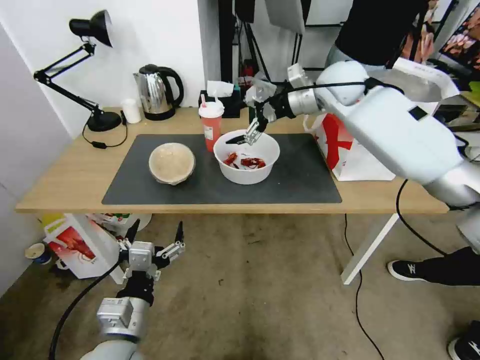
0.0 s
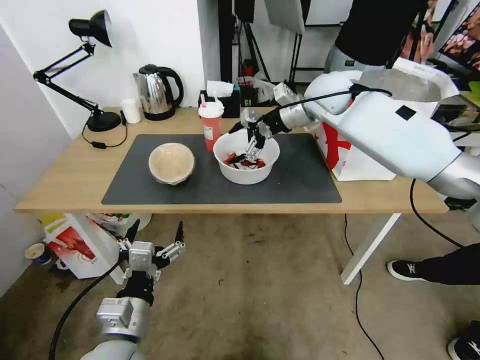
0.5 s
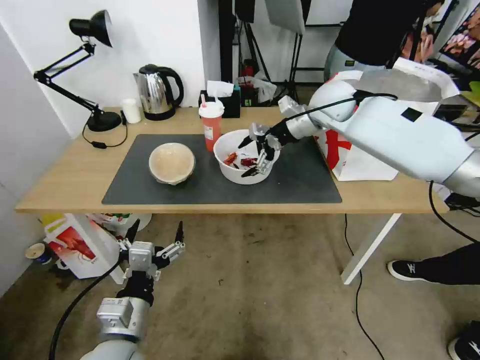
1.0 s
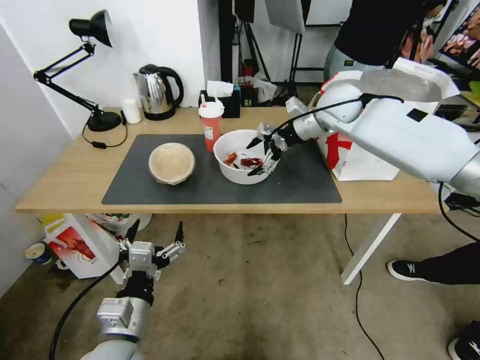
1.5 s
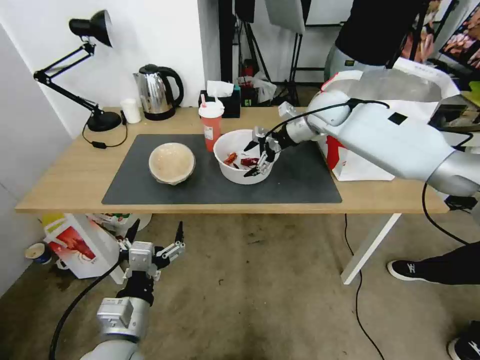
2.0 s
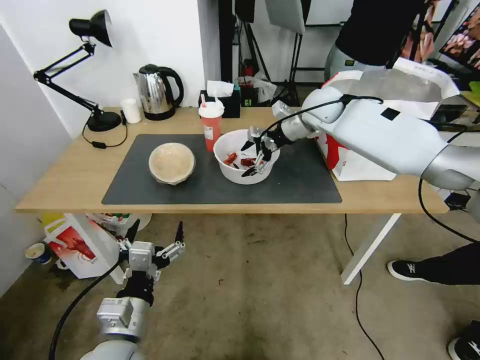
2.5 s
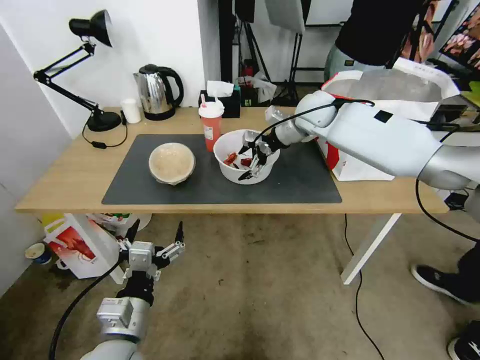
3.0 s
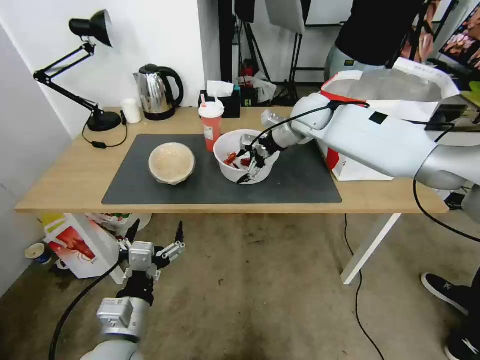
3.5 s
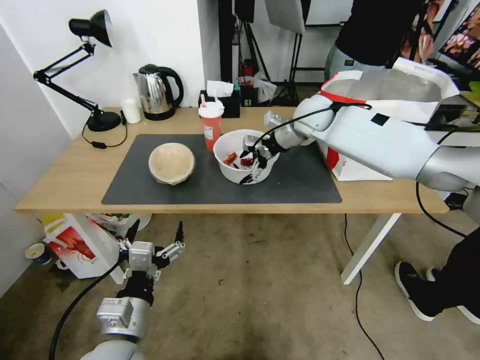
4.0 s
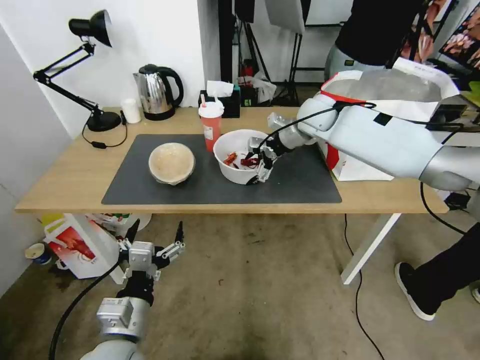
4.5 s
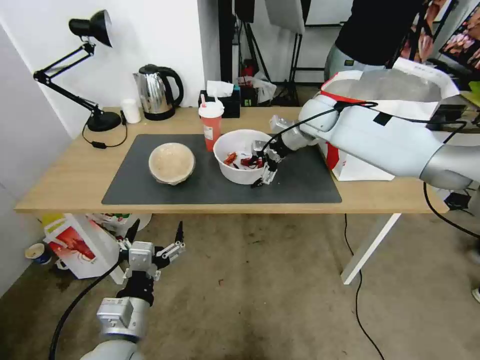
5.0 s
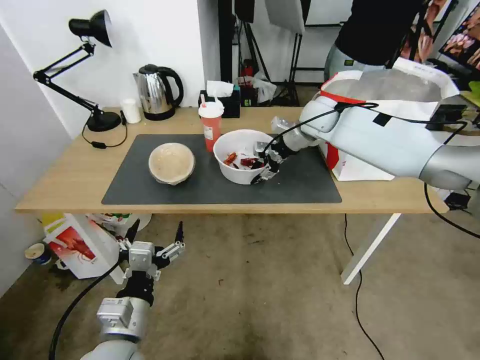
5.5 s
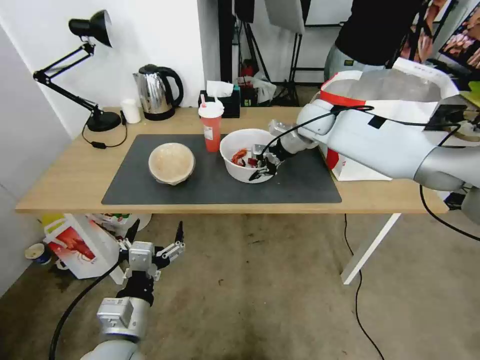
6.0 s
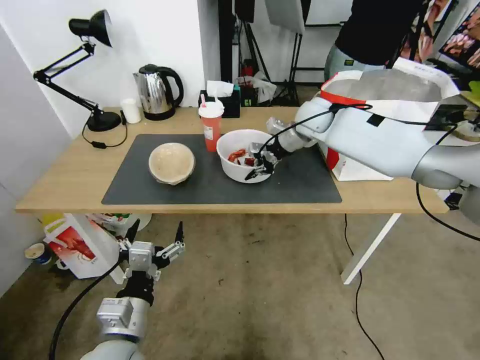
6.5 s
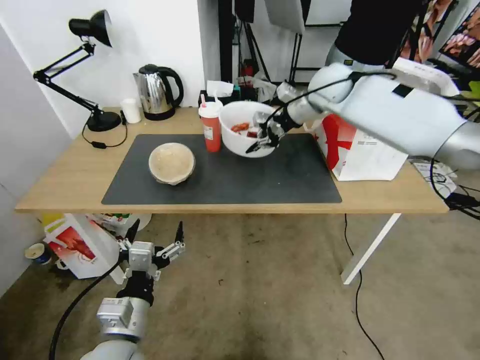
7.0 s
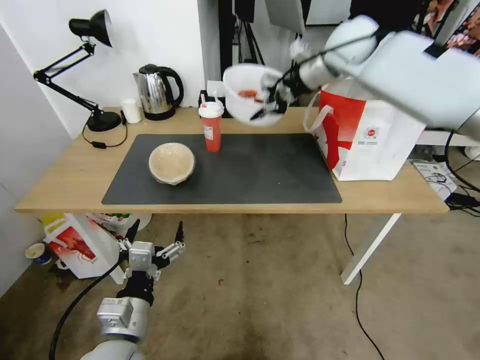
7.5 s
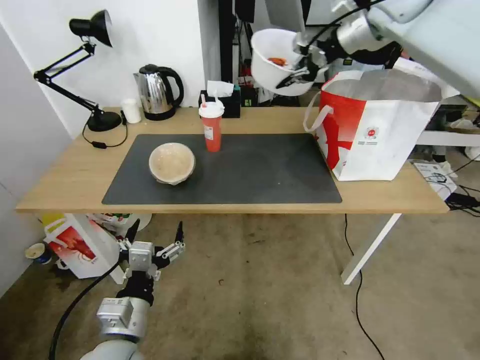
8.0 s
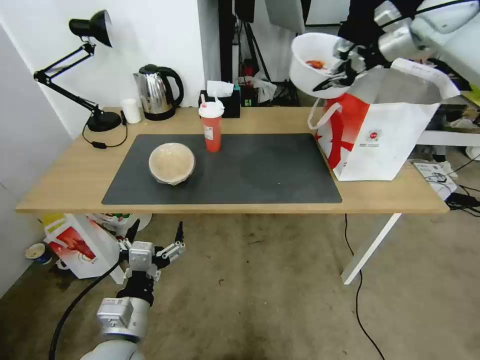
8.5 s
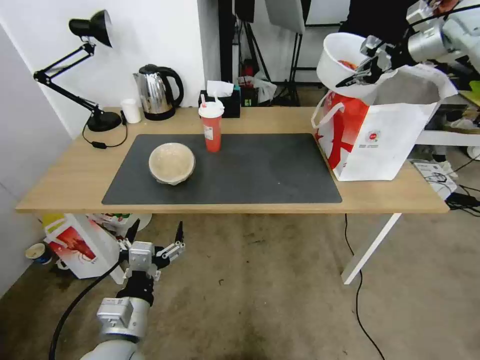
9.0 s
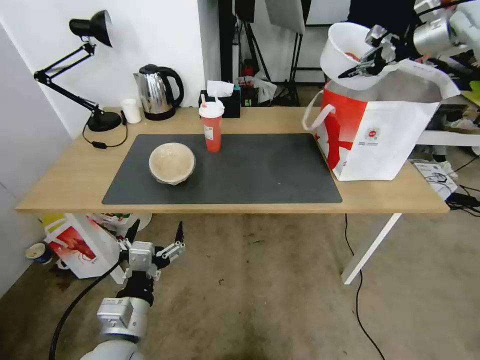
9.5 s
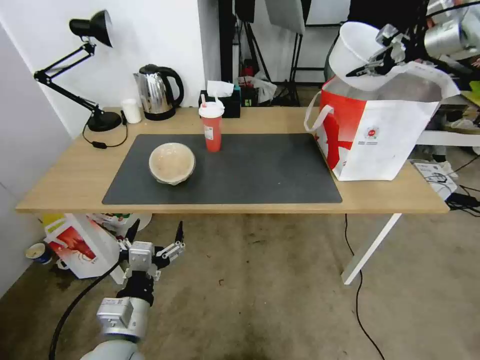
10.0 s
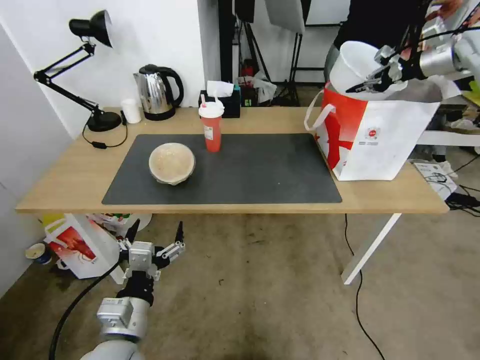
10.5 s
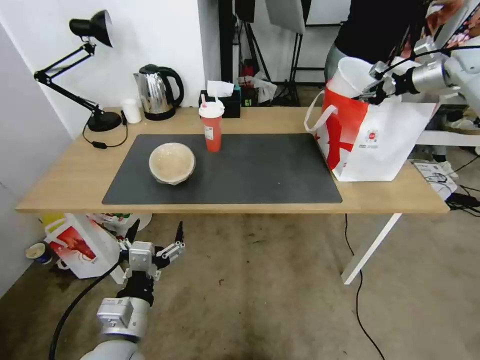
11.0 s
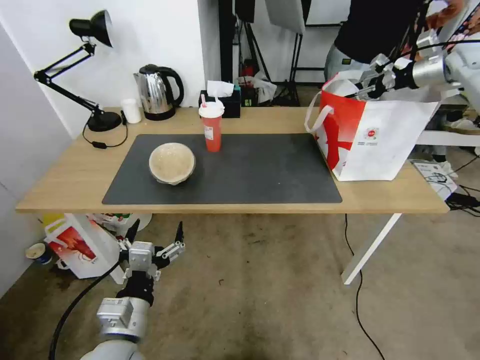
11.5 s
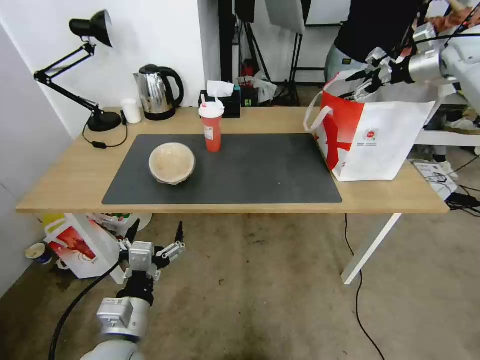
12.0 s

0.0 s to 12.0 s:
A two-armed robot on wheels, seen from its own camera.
Task of the whole recording: Pick up the trash from the table and place it into the takeout bag.
0.0 to 2.0 s: The right gripper goes roughly 5 cm downward.
2.0 to 4.0 s: The grippers move only a little.
4.0 to 6.0 s: The right gripper closes its fingers.
6.0 to 8.0 s: The right gripper moves upward and to the right, approximately 25 cm.
8.0 to 10.0 s: The right gripper shifts roughly 20 cm to the right.
10.0 to 12.0 s: The right gripper travels downward by roughly 5 cm, and opens.

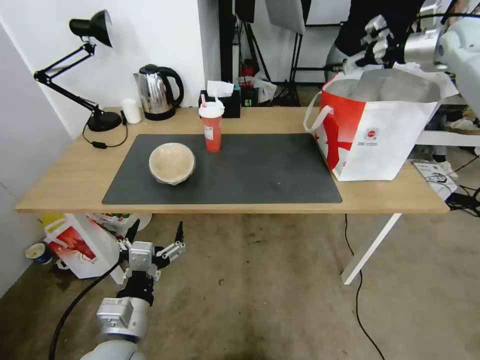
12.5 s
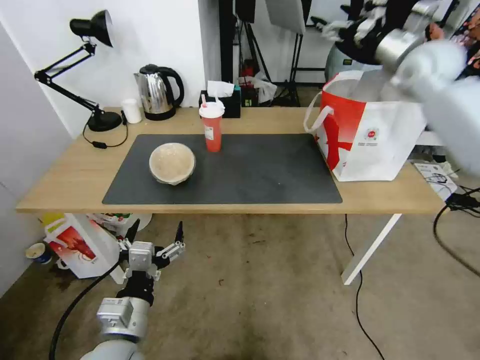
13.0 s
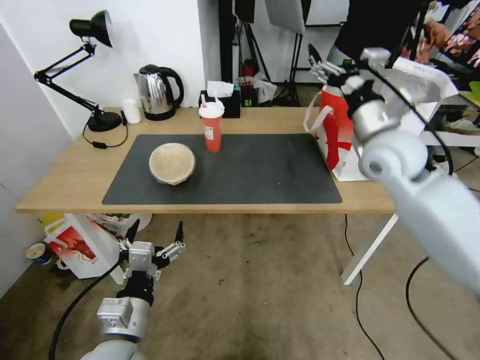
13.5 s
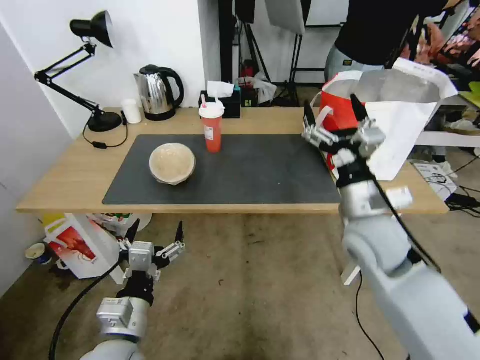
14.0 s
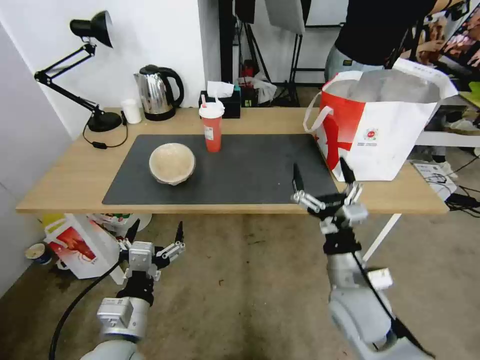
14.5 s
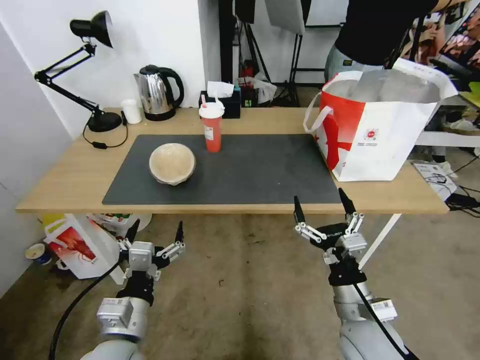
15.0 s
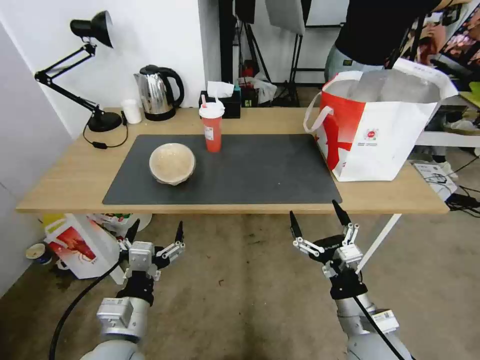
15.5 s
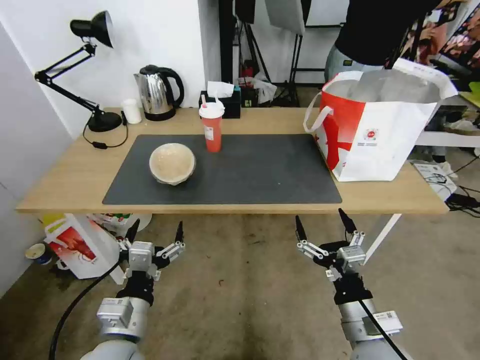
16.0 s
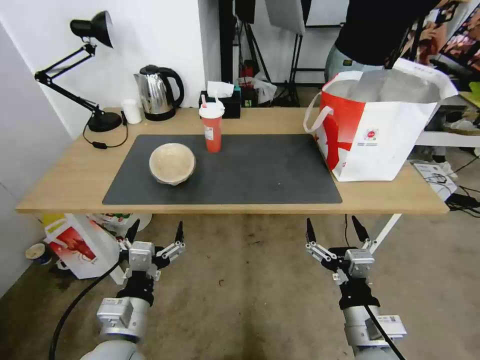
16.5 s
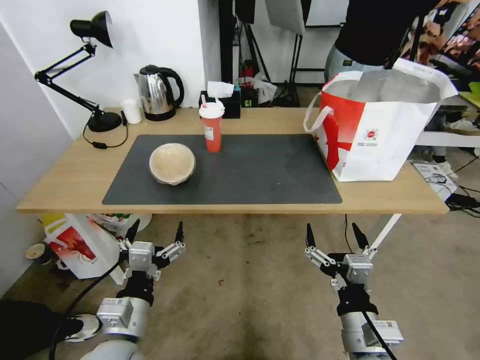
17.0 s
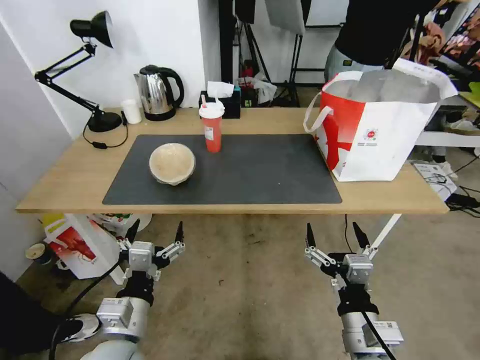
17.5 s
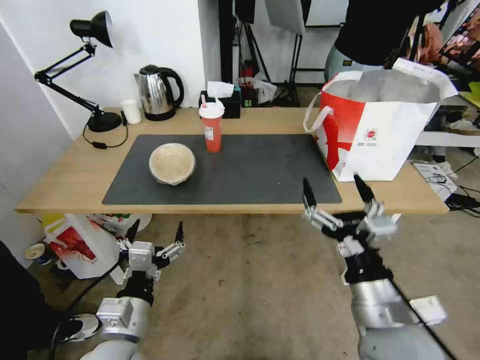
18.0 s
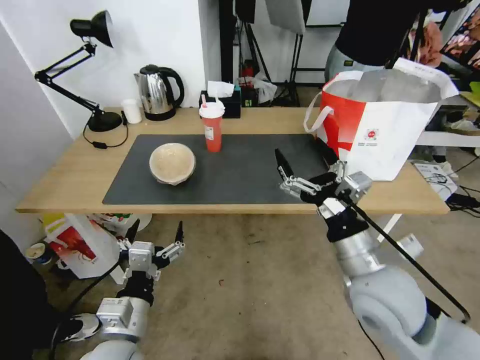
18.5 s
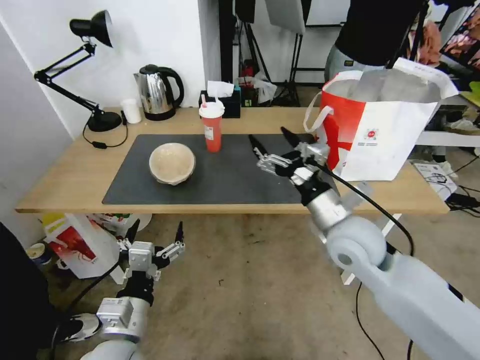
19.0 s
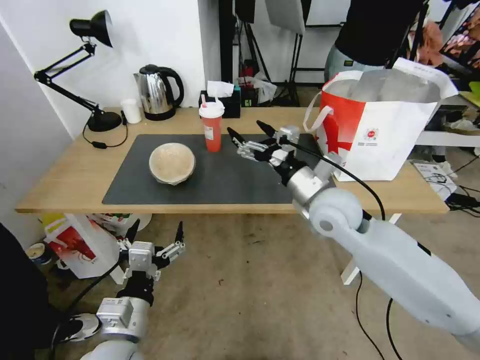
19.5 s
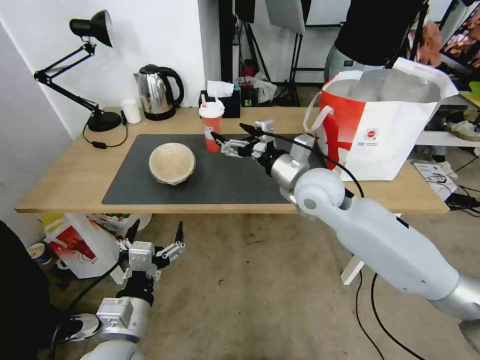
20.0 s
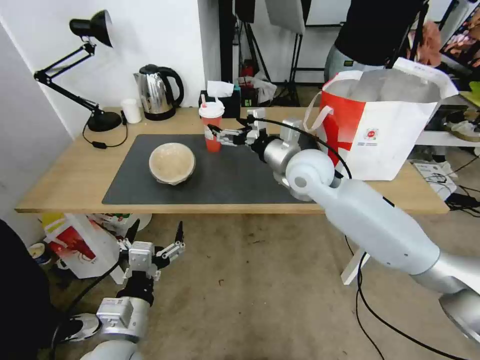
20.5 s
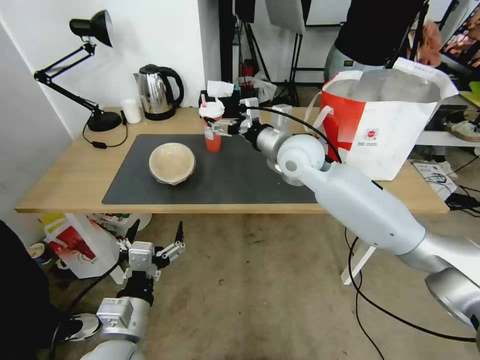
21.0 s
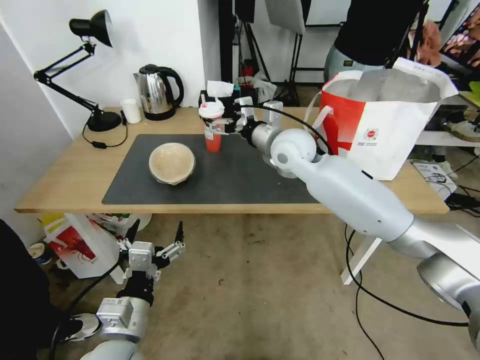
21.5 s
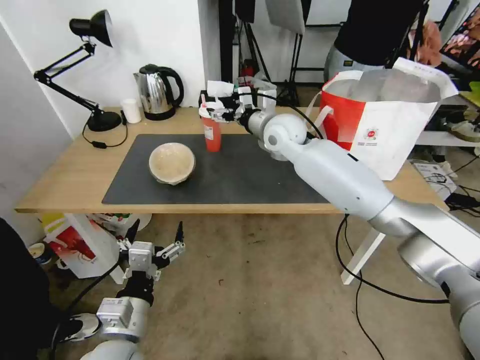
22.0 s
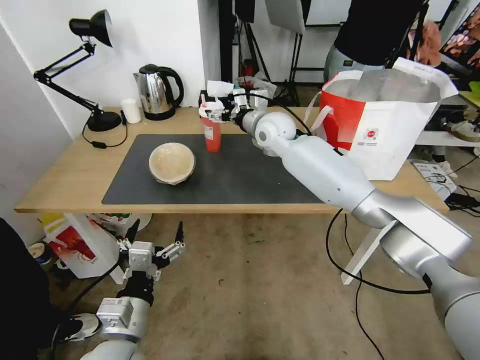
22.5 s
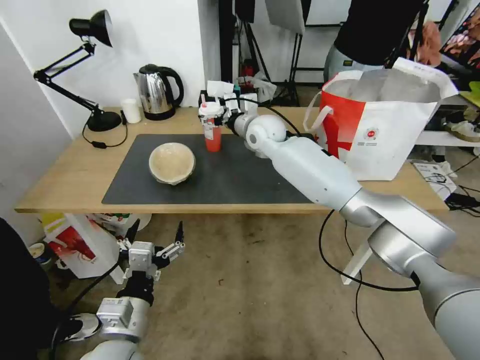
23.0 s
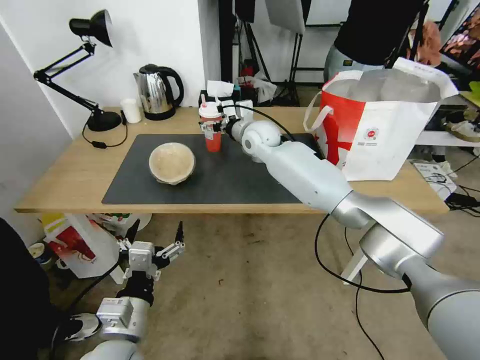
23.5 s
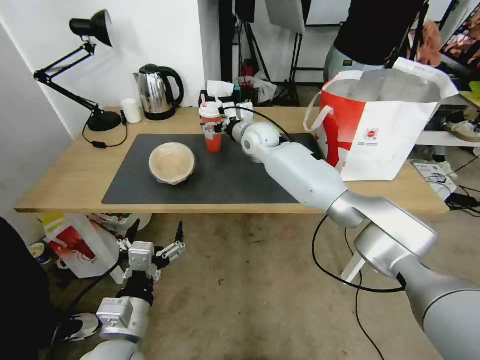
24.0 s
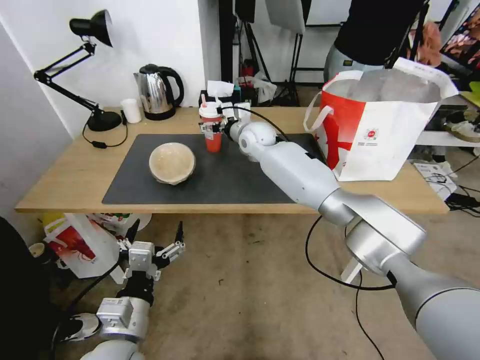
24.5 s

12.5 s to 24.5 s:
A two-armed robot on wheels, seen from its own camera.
Task of the whole recording: Pick up the trash from the table and place it into the takeout bag.
12.5 to 14.5 s: The right gripper heads backward, downward and to the left, covering approximately 60 cm.
14.5 to 16.5 s: The right gripper travels backward by some 10 cm.
16.5 to 18.5 s: The right gripper is displaced upward and forward by some 15 cm.
18.5 to 20.5 s: The right gripper travels forward by some 20 cm.
20.5 to 22.5 s: The right gripper is displaced forward and to the left by approximately 15 cm.
22.5 to 24.5 s: The right gripper changes place by approximately 5 cm.

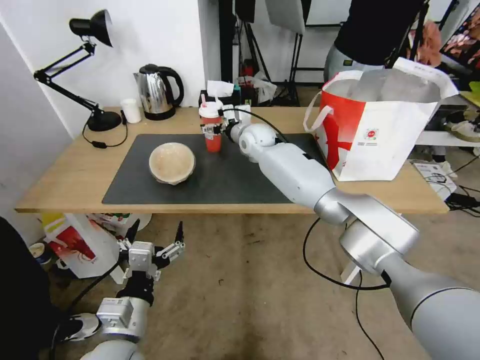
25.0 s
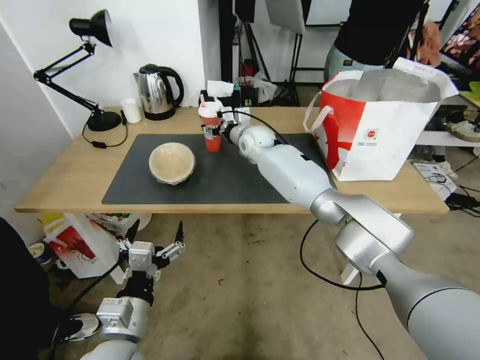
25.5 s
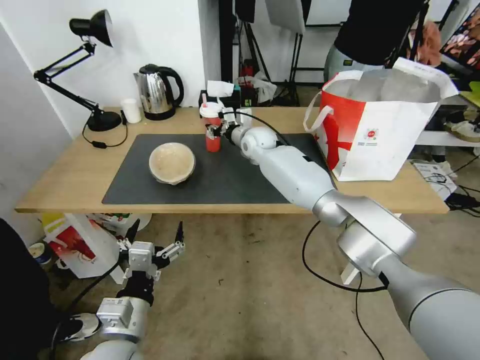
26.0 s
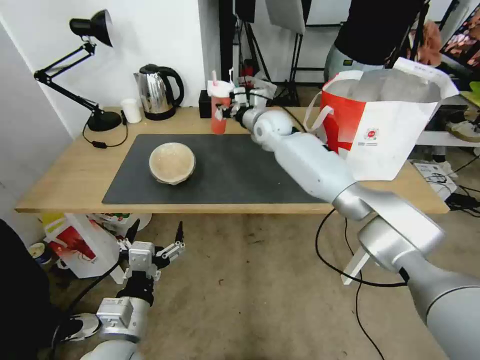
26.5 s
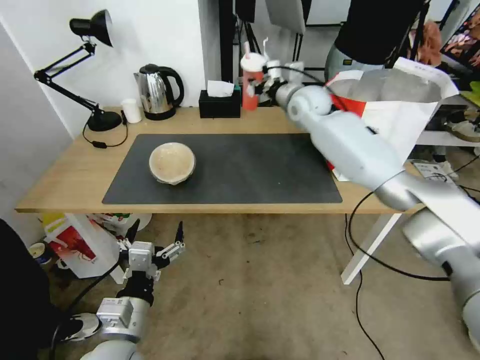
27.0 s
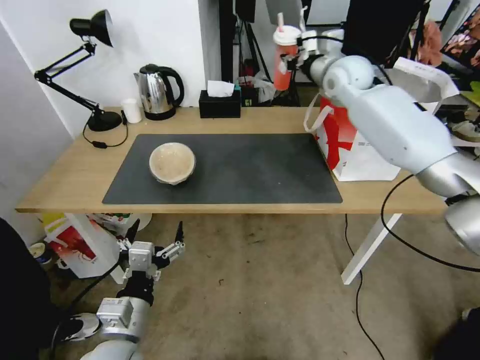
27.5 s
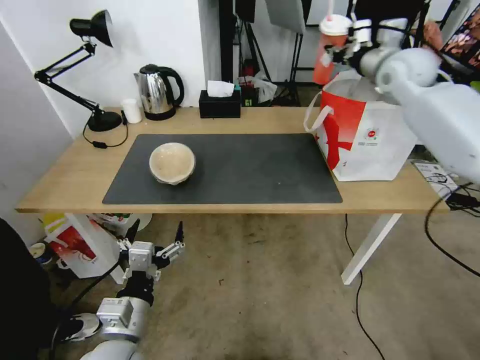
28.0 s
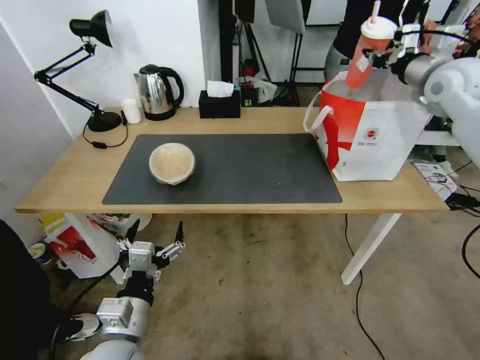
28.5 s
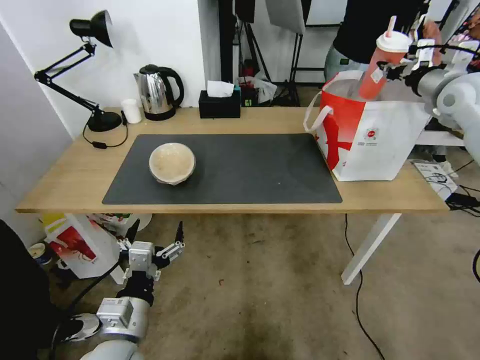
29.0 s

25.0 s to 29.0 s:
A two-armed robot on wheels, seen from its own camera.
Task of the whole recording: Pick up the trash from the table and place it into the takeout bag.
25.0 to 27.0 s: The right gripper is displaced to the right and upward by about 15 cm, and closes its fingers.
27.0 to 29.0 s: The right gripper shifts approximately 30 cm to the right.
